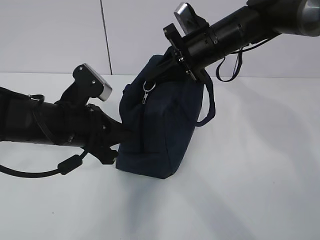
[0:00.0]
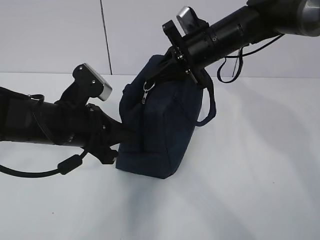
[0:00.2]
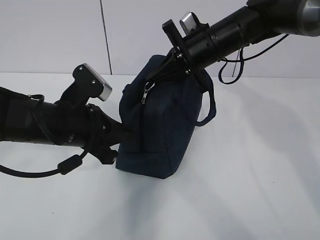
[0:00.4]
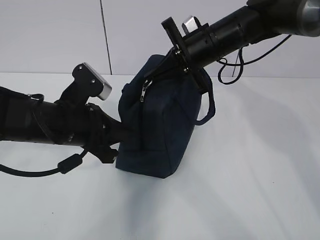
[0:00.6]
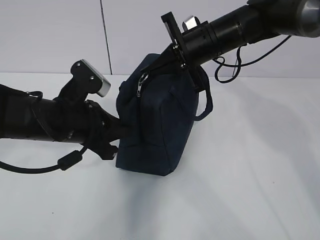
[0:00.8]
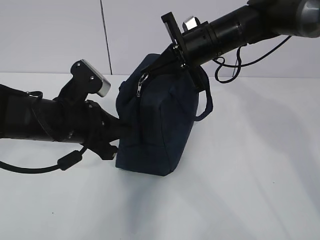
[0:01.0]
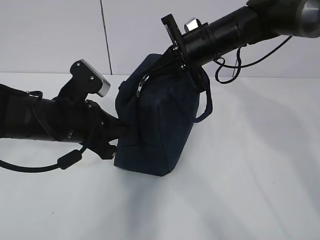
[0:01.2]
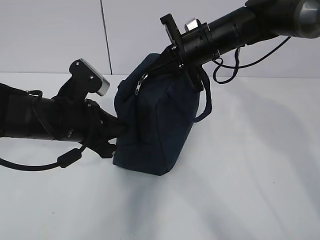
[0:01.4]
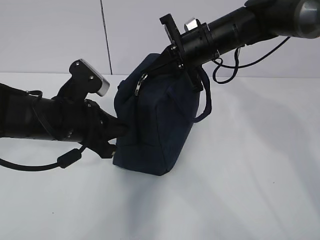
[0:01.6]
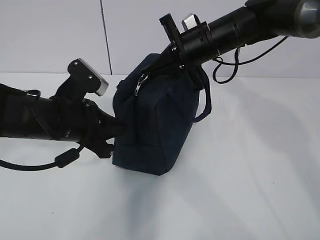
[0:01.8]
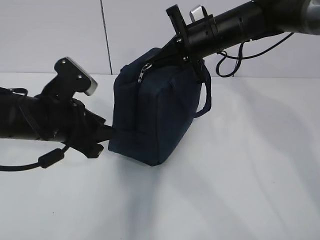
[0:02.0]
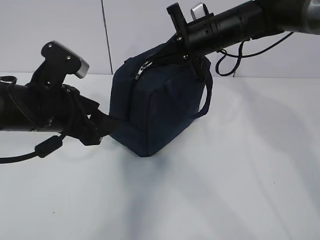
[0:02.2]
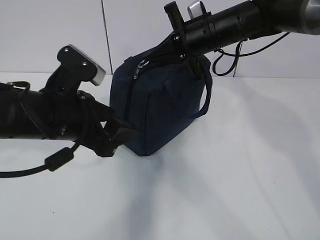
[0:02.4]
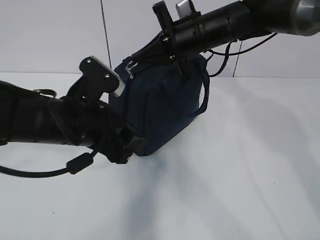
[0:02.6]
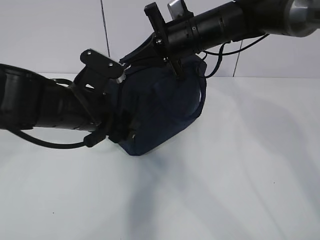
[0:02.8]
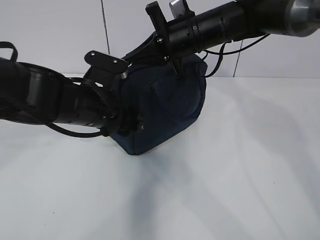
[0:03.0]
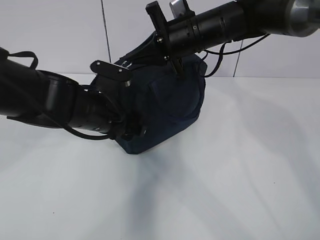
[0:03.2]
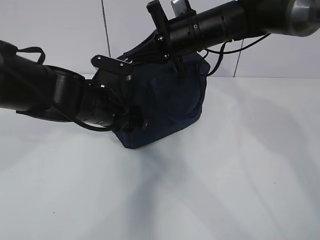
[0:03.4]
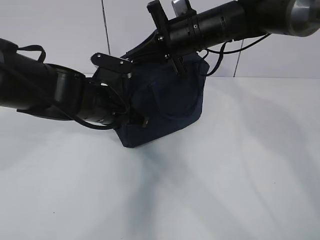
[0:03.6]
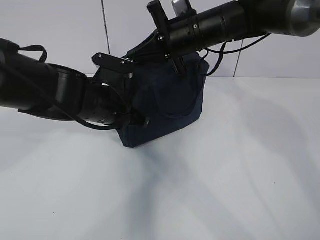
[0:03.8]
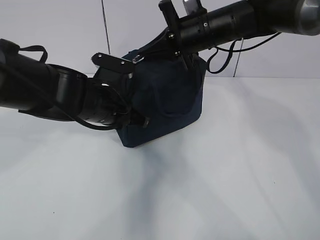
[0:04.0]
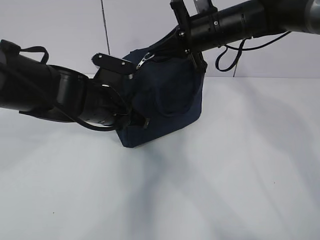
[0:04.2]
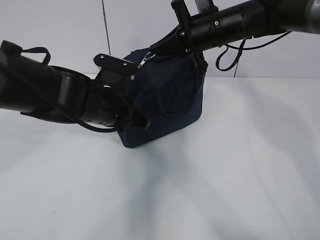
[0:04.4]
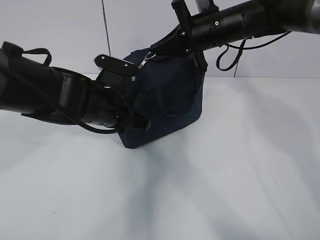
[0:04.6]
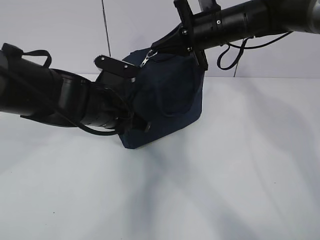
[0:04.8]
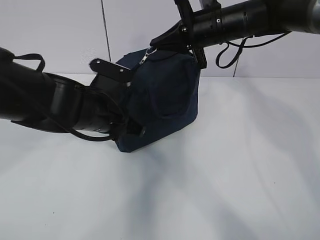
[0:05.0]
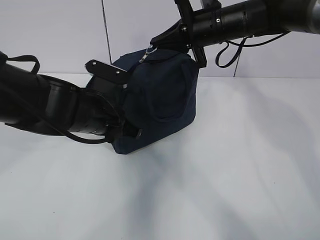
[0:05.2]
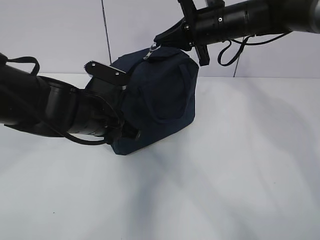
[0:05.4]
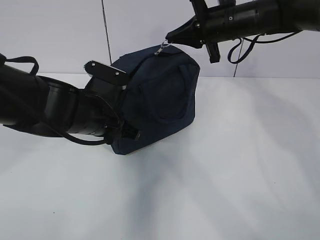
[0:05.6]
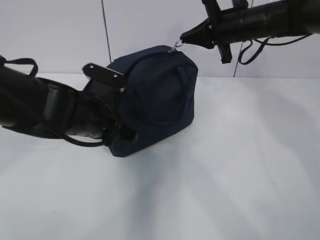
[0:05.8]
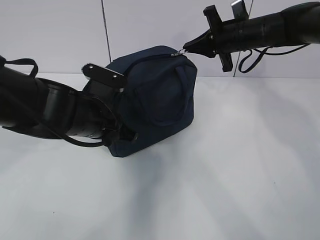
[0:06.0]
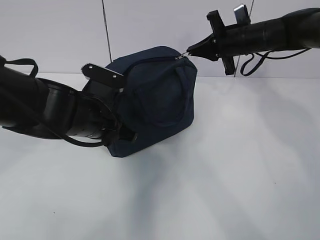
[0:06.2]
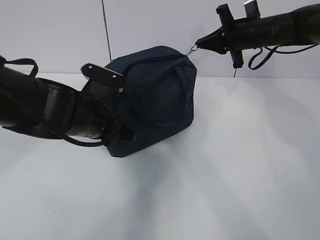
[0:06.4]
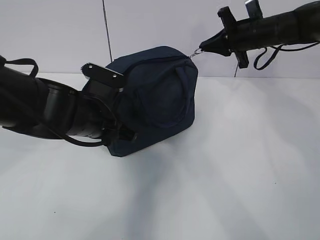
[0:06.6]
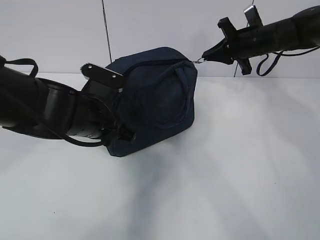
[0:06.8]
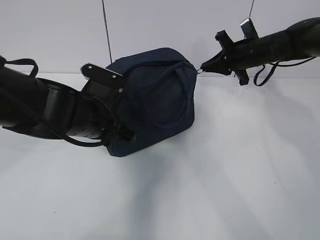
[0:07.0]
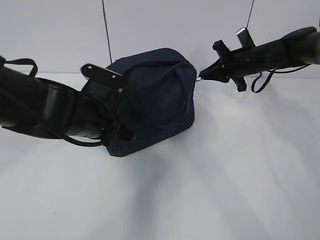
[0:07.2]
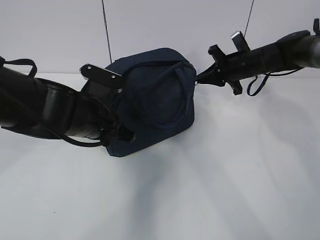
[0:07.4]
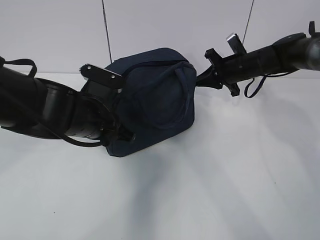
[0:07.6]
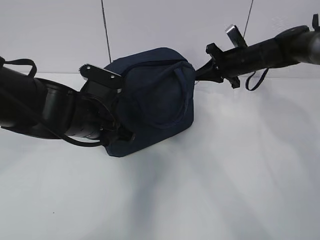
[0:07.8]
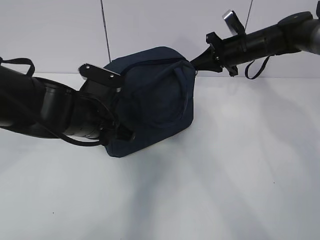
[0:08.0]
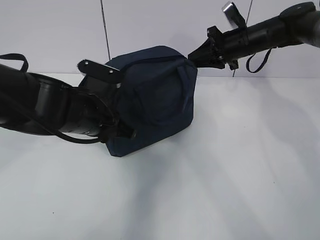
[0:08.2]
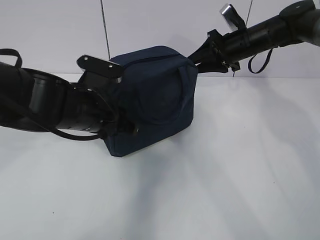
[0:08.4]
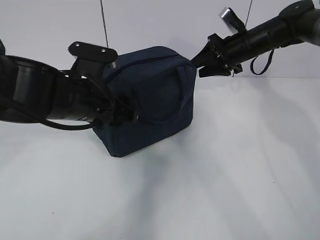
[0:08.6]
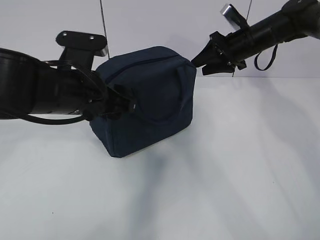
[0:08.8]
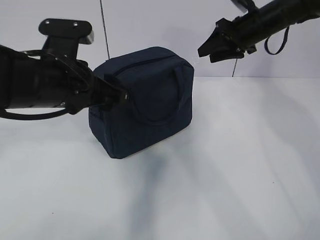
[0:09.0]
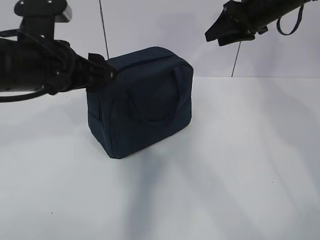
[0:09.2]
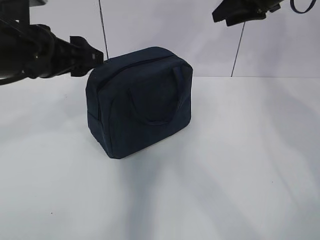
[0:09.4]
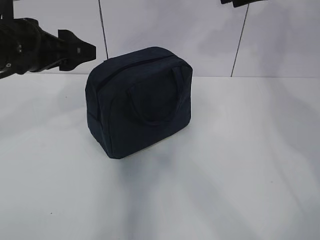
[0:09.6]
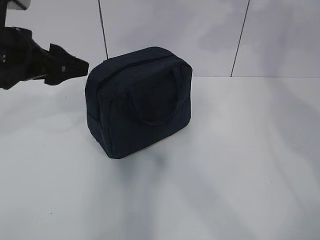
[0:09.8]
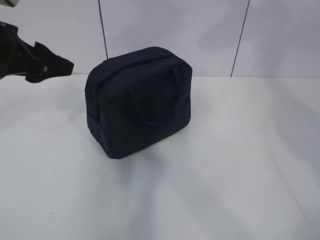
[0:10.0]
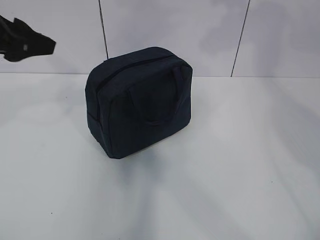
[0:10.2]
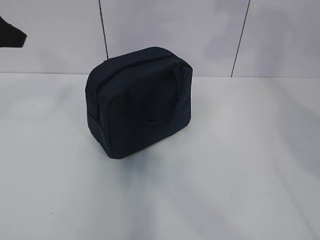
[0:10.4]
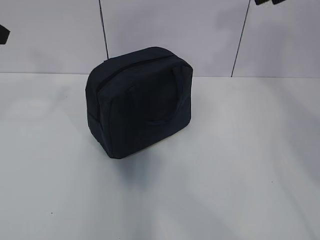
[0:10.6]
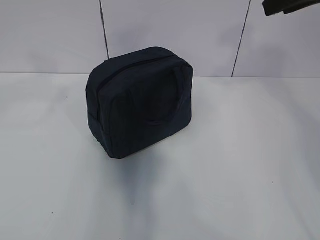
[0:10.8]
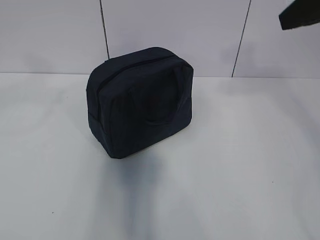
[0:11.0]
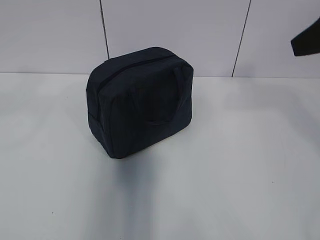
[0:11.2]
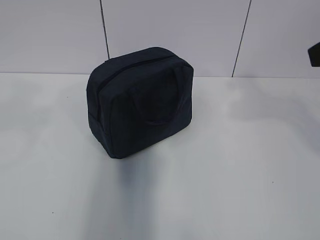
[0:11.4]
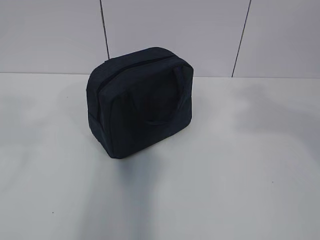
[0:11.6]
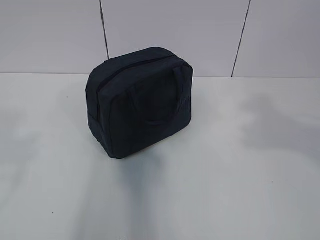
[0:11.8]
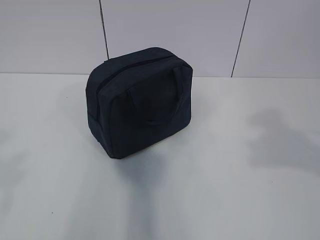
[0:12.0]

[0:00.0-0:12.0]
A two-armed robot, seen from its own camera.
0:01.6 to 0:03.0: The left gripper opens.
0:03.0 to 0:04.4: The right gripper ends up approximately 5 cm from where it was. The left gripper closes up.
0:04.4 to 0:06.0: The right gripper shifts about 5 cm to the right.
0:06.0 to 0:07.6: The right gripper heads downward, covering some 10 cm.
0:07.6 to 0:09.0: Both grippers travel together upward, about 10 cm. The left gripper opens up, while the right gripper opens its fingers.
0:09.0 to 0:10.4: The left gripper moves to the left and upward, roughly 20 cm, while the right gripper goes about 20 cm upward and backward.
0:10.4 to 0:12.0: The grippers both shift backward by roughly 25 cm.

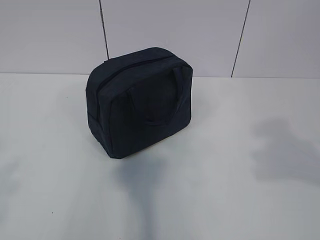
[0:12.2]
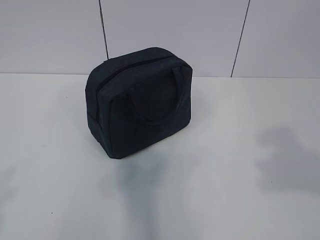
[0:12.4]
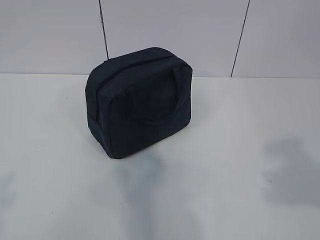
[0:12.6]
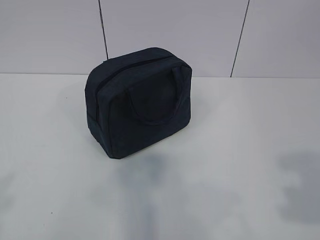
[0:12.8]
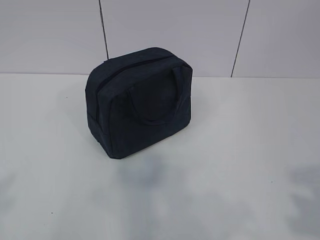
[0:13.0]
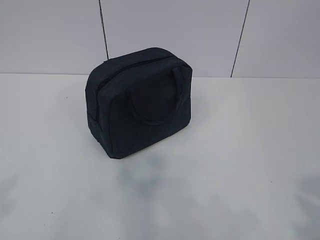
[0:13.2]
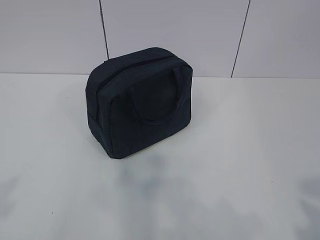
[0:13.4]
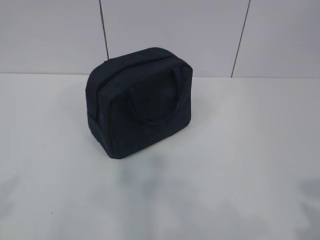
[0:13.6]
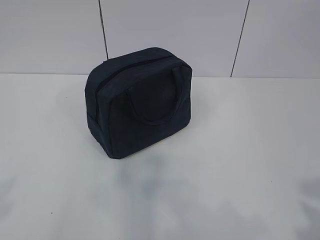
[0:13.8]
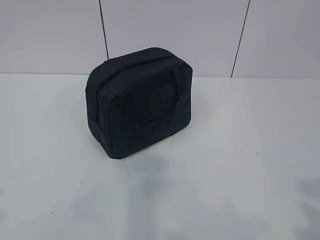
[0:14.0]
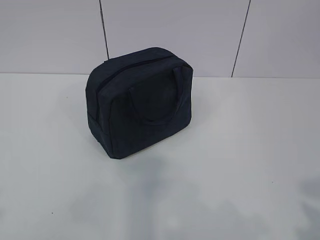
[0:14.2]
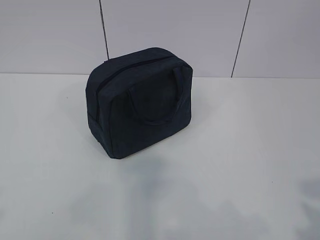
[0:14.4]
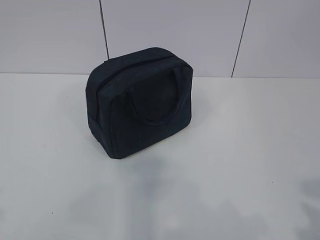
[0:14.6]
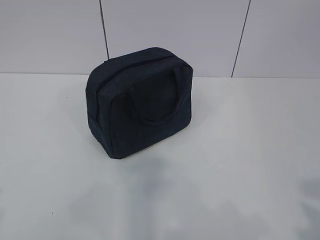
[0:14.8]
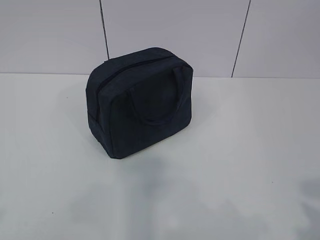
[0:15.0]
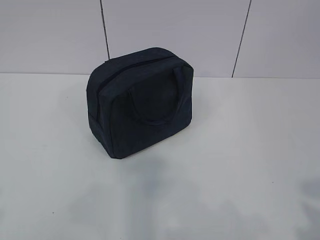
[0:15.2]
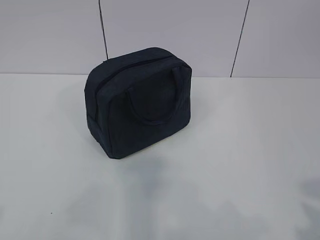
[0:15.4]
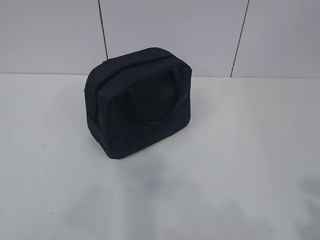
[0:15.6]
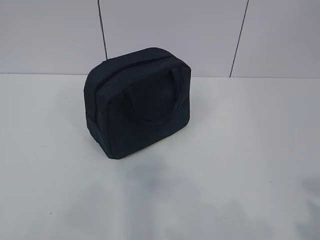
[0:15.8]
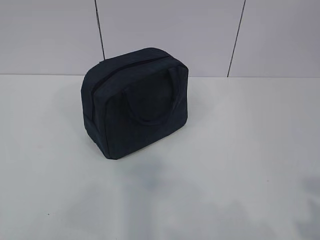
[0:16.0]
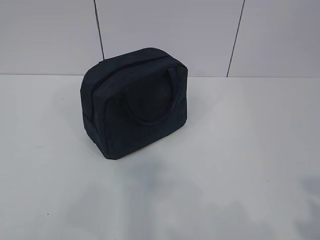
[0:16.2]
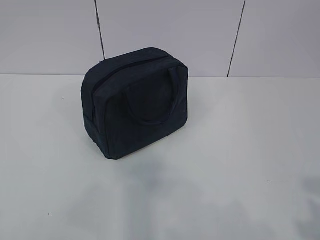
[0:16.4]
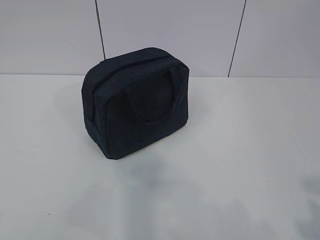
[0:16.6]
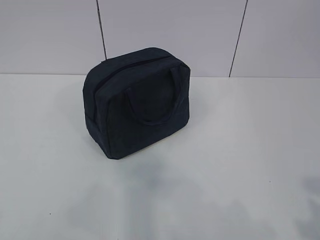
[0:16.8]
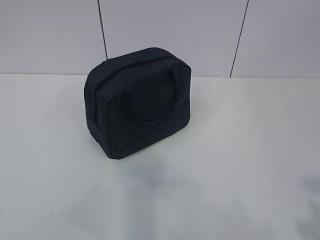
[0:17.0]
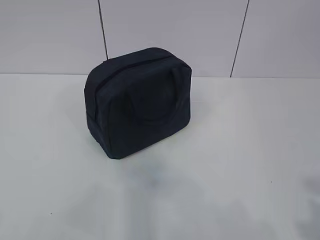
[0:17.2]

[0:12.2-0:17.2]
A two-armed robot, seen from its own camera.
0:12.2 to 0:13.8: The right gripper heads backward and downward, covering about 10 cm.
0:15.6 to 0:17.2: Neither gripper changes place.
